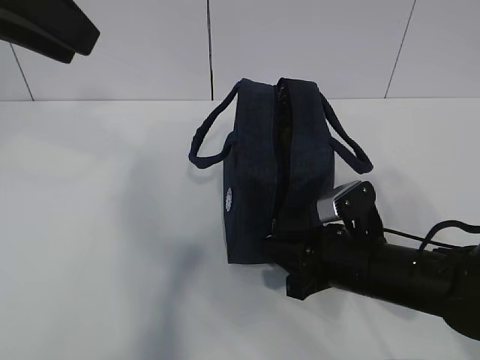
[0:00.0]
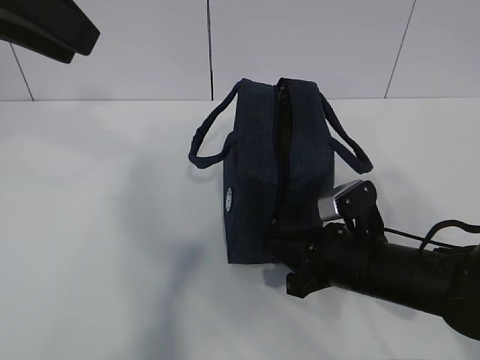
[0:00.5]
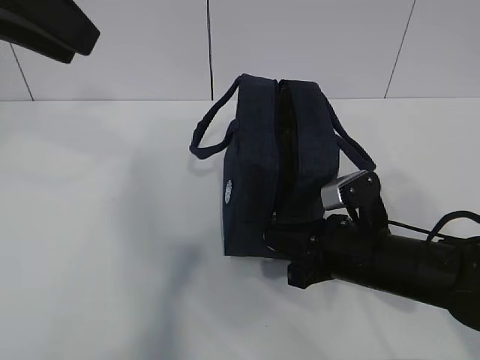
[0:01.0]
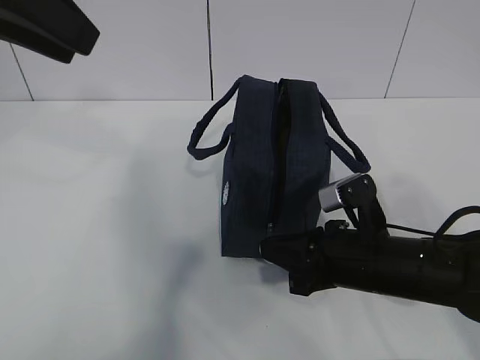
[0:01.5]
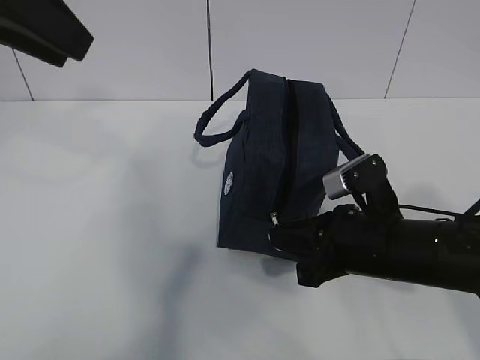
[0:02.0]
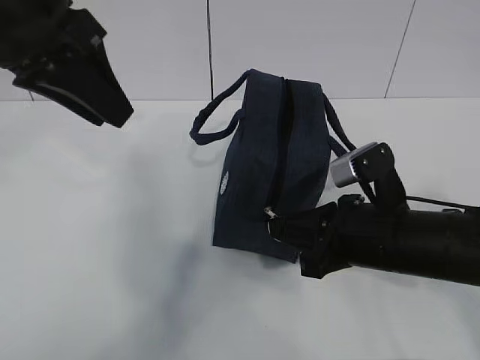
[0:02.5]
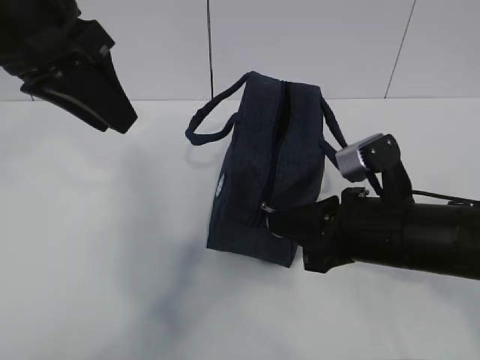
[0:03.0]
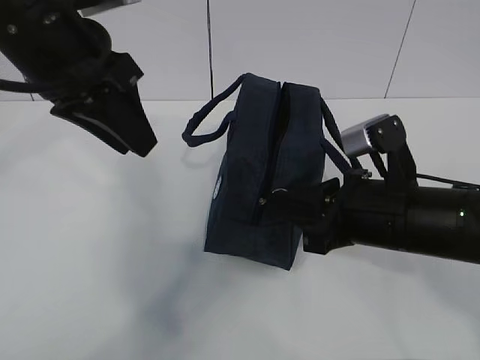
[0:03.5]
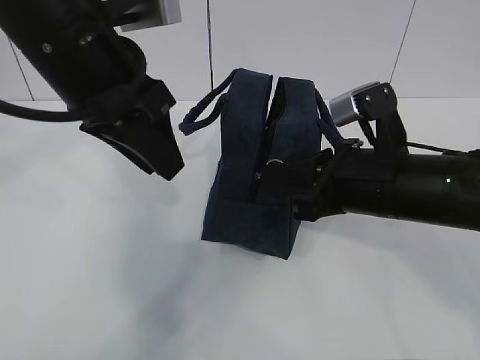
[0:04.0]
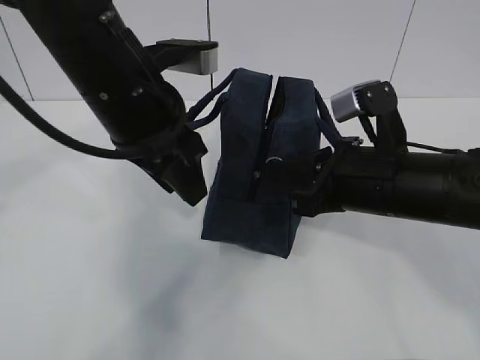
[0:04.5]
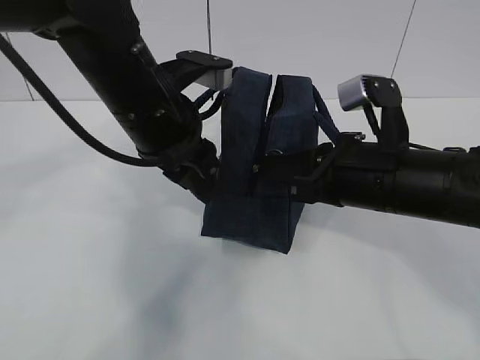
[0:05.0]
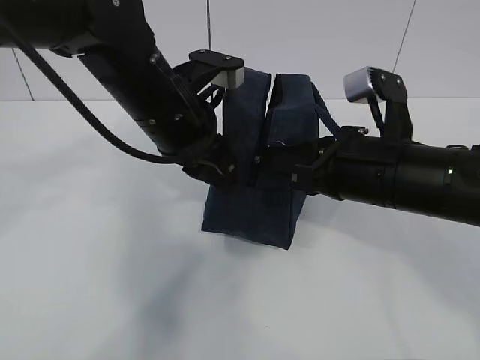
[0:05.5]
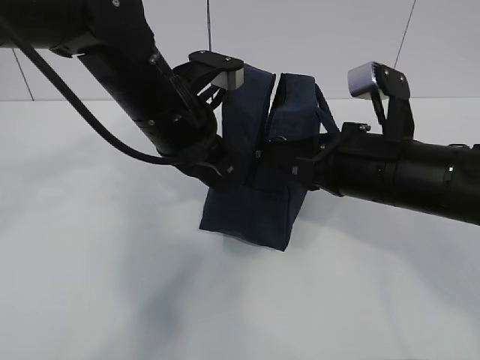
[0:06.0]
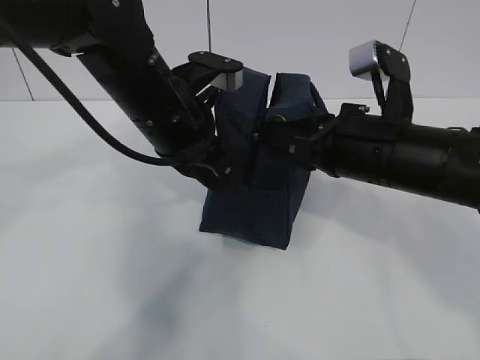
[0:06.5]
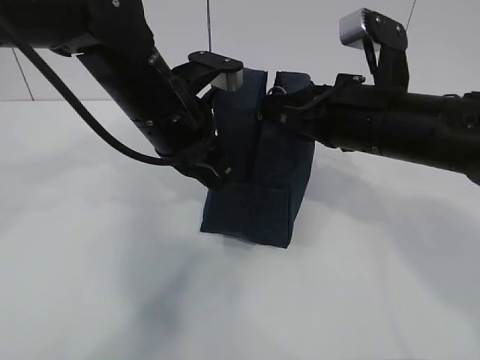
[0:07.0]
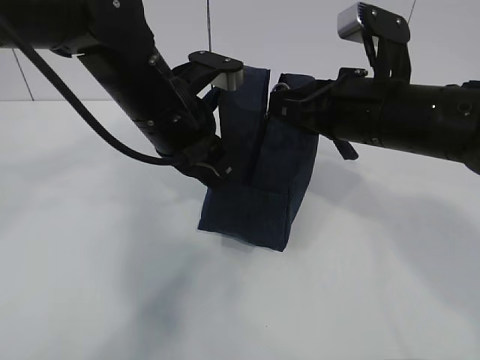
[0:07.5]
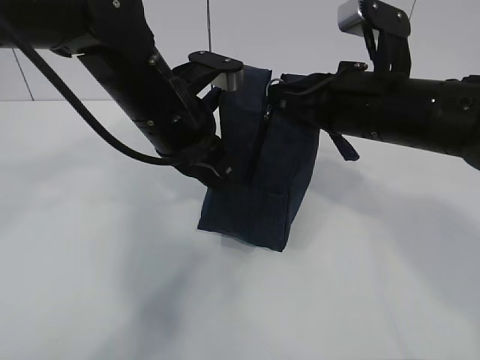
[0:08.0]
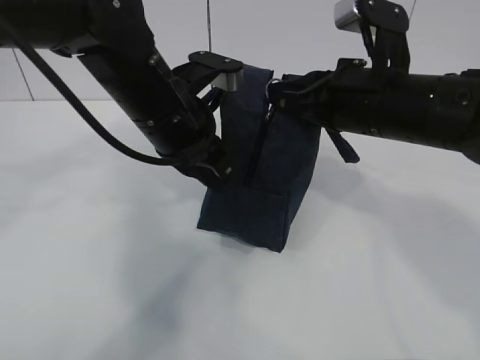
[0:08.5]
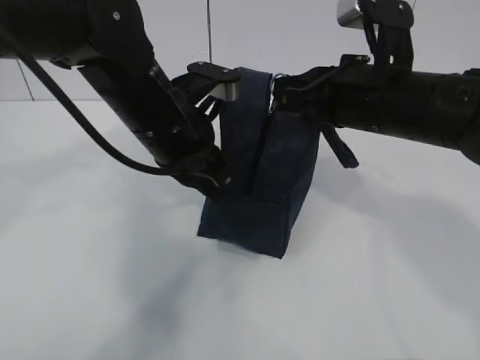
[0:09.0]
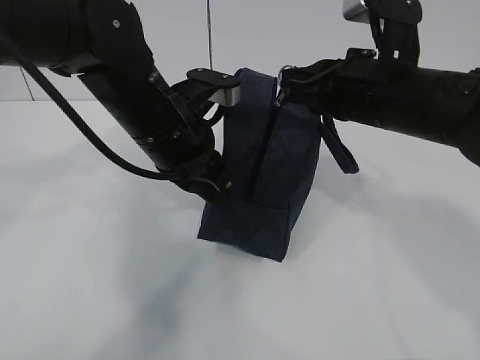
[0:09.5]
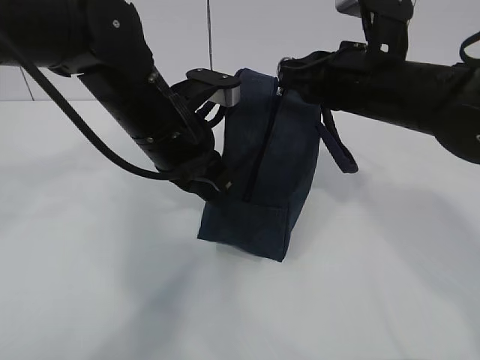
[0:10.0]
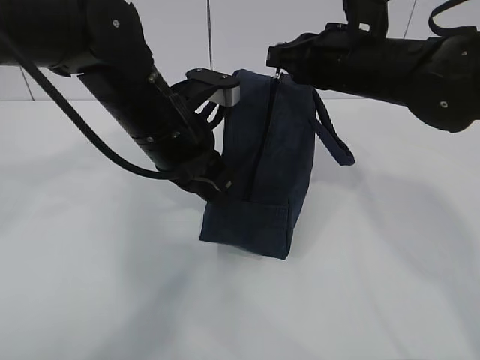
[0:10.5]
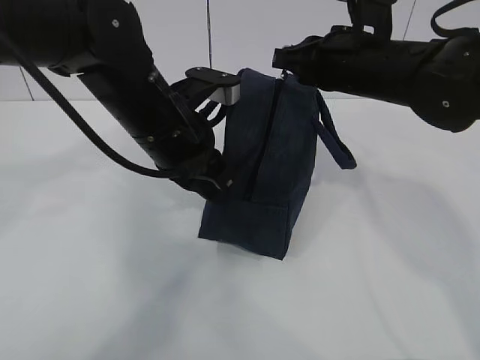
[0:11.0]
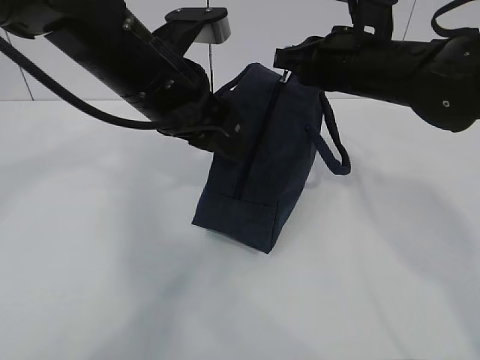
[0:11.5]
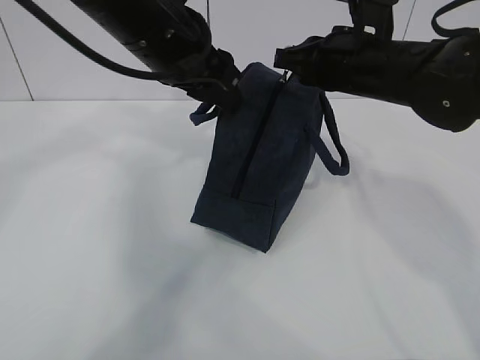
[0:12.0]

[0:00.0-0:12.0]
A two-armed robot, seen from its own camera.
Step, 0:00.0 to 0:06.0: Pull the zipper with your right hand.
0:00.0 to 0:02.0: The grippers make only small movements.
0:02.0 to 0:04.0: The right gripper travels upward by some 5 cm; the left gripper shifts approximately 10 cm downward and to the right.
0:04.0 to 0:06.0: The left gripper moves downward, about 10 cm, and closes its fingers.
0:06.0 to 0:08.0: The right gripper moves roughly 5 cm.
0:08.0 to 0:10.0: The grippers move only a little.
0:10.0 to 0:12.0: The left gripper goes about 10 cm upward, and opens its fingers.

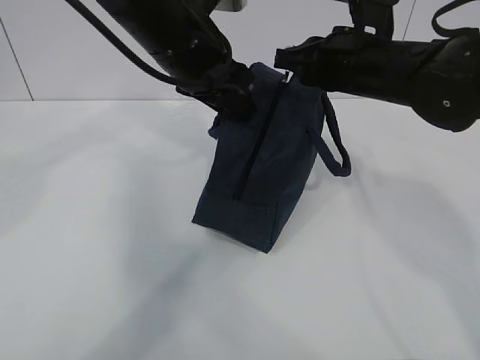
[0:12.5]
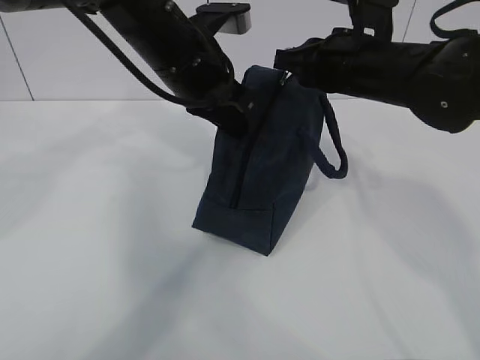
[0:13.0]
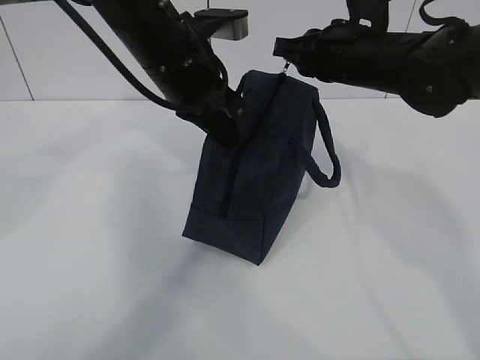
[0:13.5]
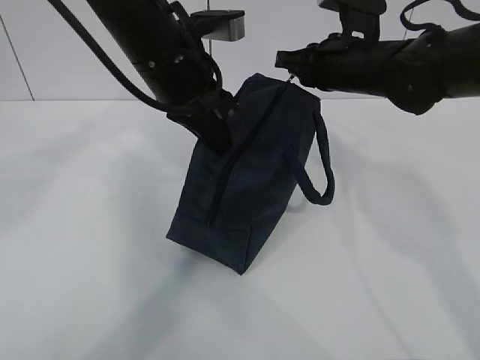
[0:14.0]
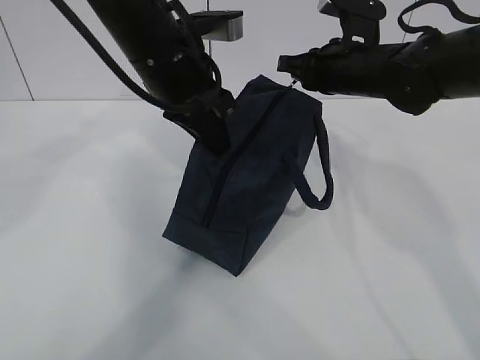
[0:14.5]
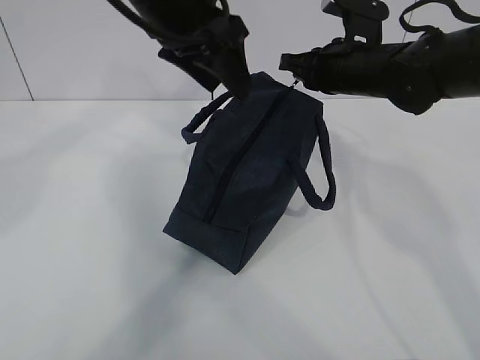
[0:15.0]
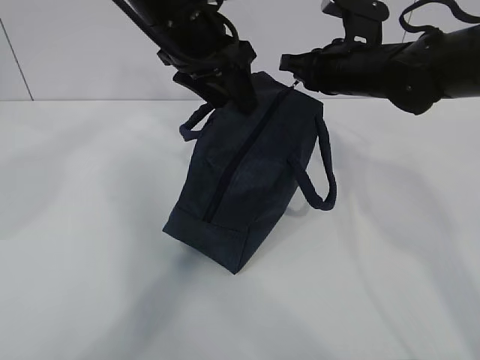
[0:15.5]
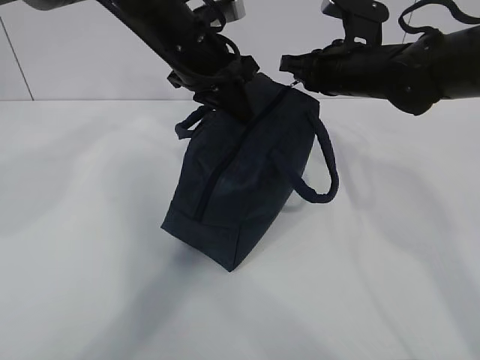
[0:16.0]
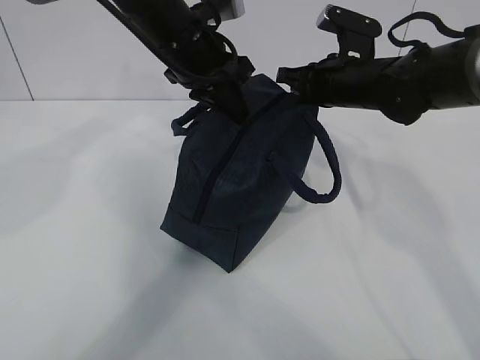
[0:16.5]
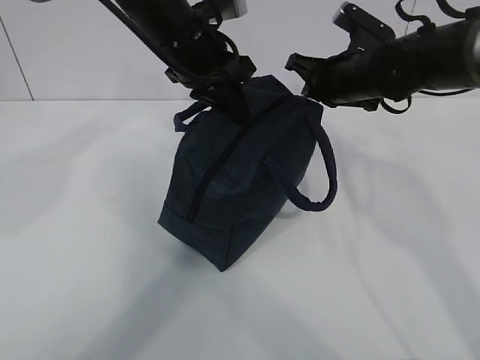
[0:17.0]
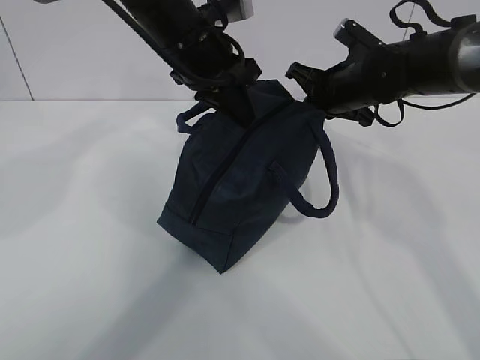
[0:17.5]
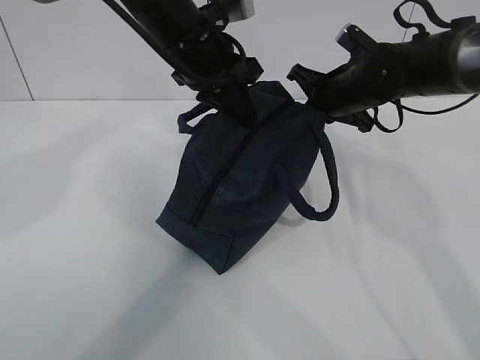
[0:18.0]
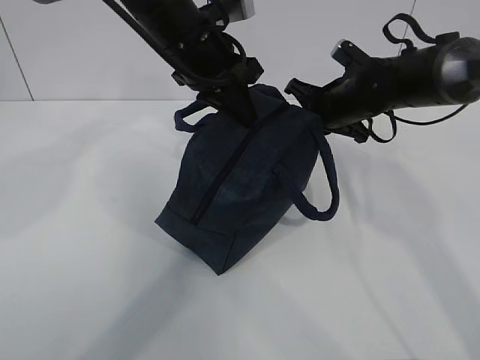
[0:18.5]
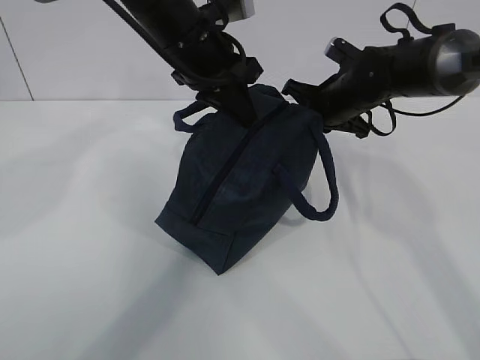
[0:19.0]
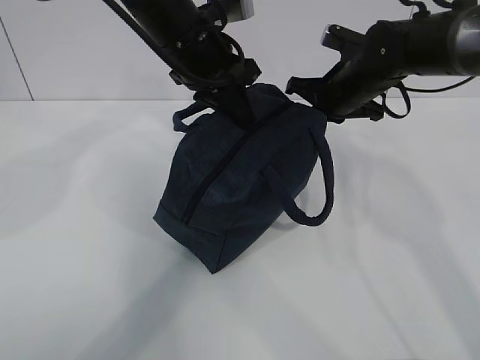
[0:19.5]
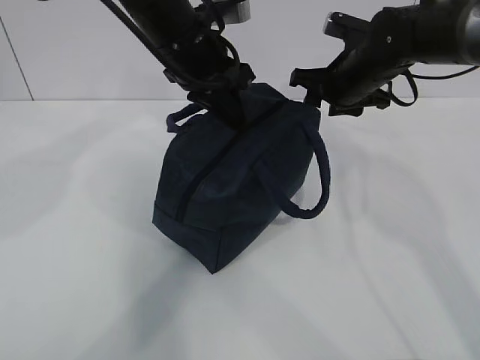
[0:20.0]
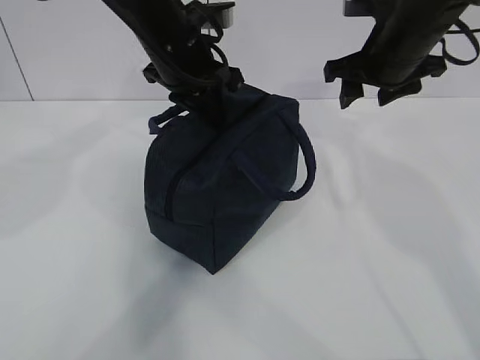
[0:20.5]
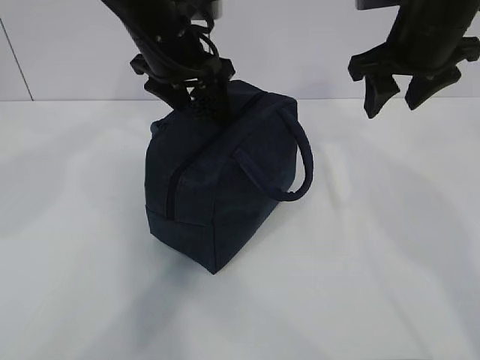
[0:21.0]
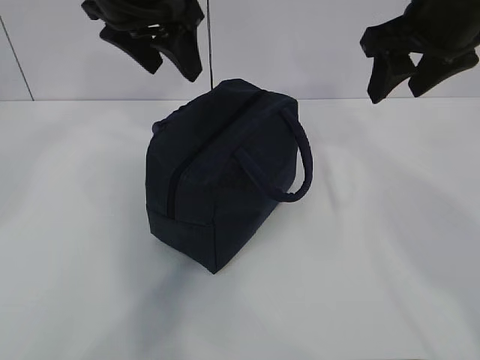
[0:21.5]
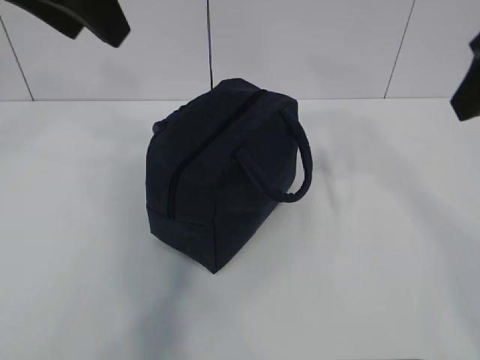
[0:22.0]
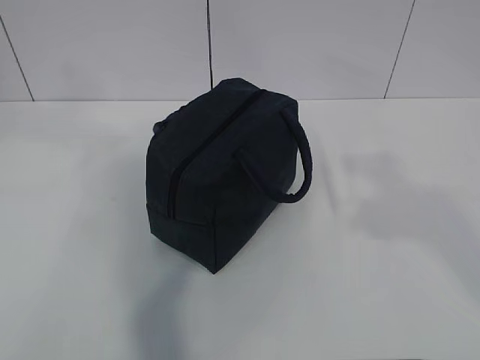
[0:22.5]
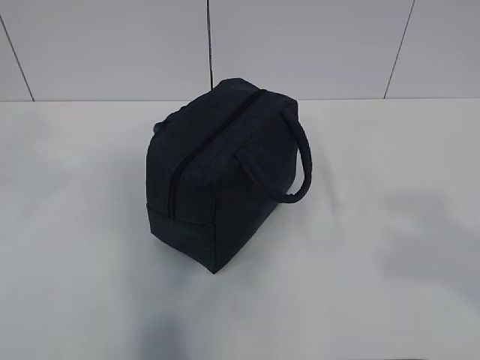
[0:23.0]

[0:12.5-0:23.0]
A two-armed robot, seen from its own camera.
0:12.5 to 0:14.5: The left gripper closes its fingers; the right gripper shifts some 5 cm forward.
0:14.5 to 0:16.5: The left gripper shifts roughly 5 cm forward, and opens, then closes once more.
0:19.0 to 0:21.0: The left gripper opens up, while the right gripper moves upward and backward, roughly 15 cm, and opens its fingers.
0:21.0 to 0:23.0: The right gripper goes some 35 cm backward. The left gripper shifts some 40 cm backward, upward and to the left.

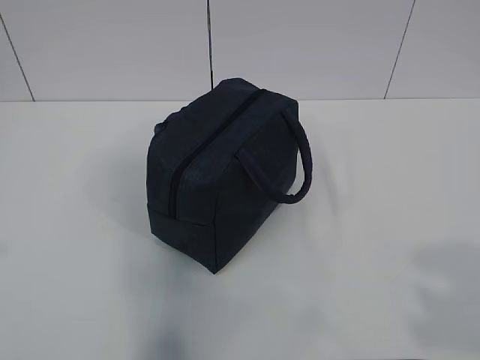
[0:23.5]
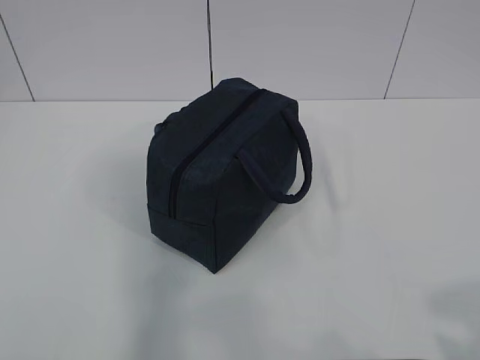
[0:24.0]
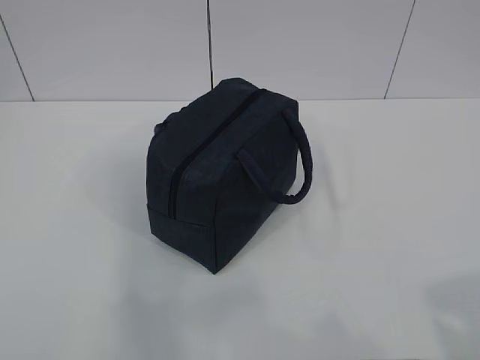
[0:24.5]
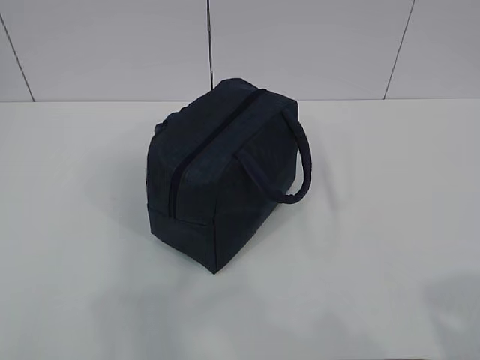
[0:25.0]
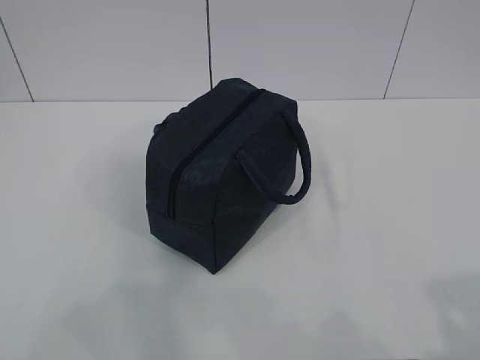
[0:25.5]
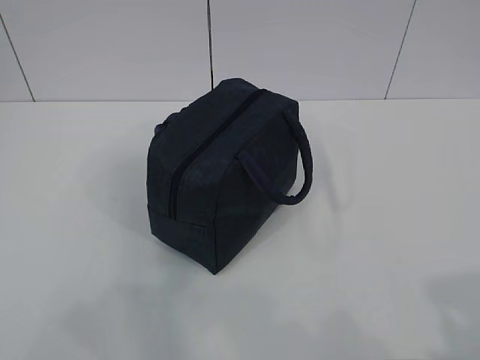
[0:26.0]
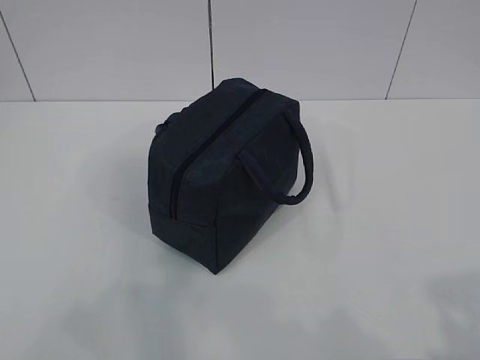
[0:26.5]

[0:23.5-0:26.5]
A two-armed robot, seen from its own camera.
0:23.5 to 0:25.0: The left gripper goes some 15 cm downward. The right gripper goes about 5 cm downward.
